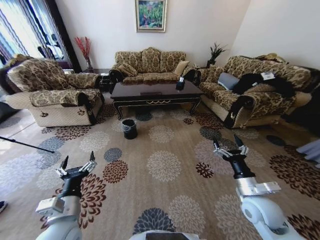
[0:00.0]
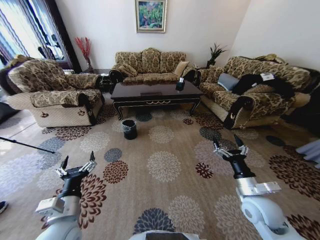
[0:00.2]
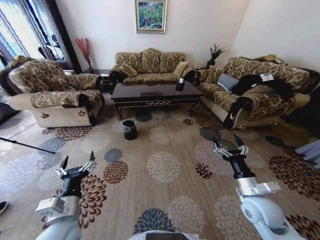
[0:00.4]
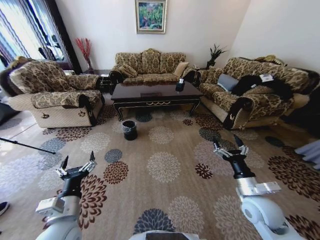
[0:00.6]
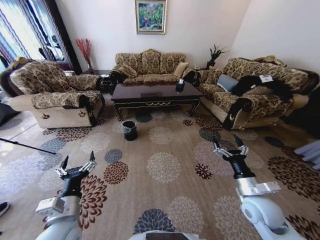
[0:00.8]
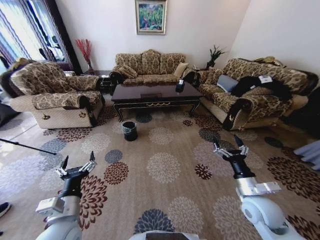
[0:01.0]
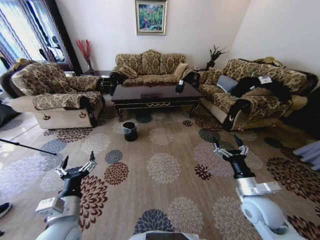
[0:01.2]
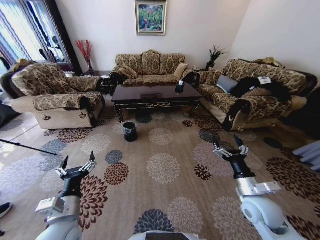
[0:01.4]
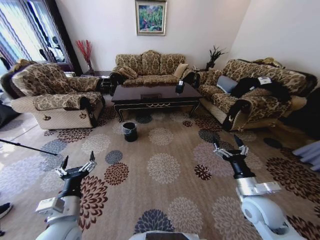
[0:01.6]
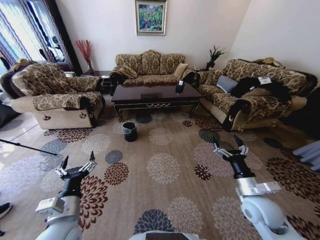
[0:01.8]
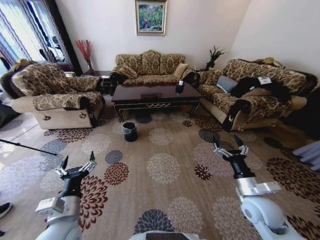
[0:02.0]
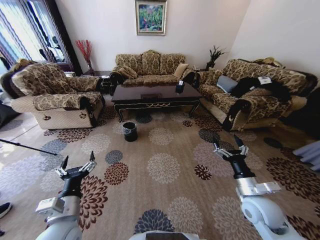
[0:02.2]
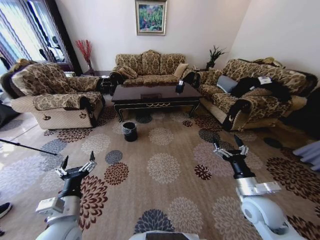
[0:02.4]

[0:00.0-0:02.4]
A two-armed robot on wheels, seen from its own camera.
Task of the whole recording: Move to the front of the table and pick up the trash from the floor, then place it into the trash bin.
0:00.0 to 0:02.4: Neither gripper changes place.

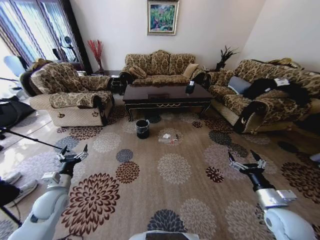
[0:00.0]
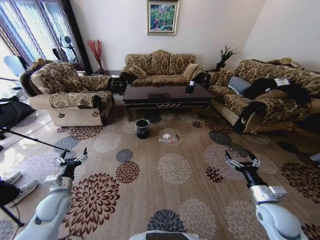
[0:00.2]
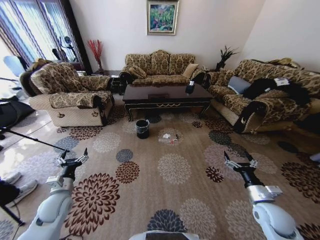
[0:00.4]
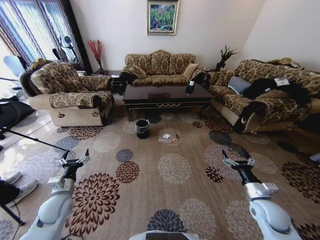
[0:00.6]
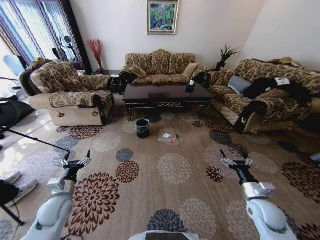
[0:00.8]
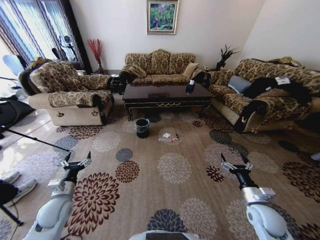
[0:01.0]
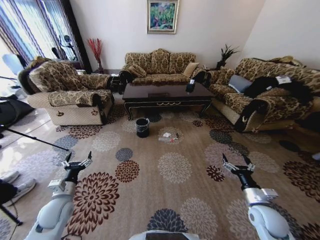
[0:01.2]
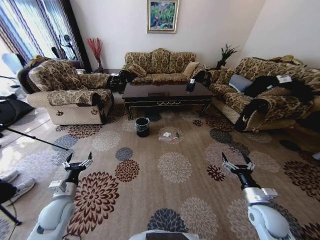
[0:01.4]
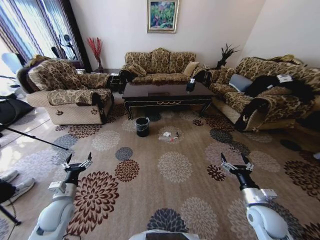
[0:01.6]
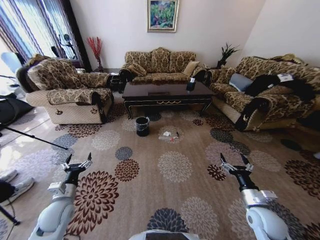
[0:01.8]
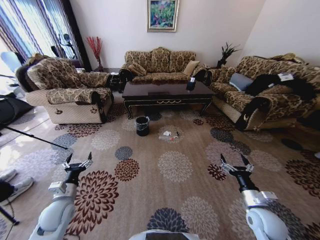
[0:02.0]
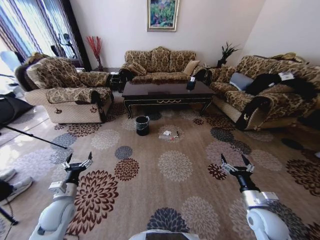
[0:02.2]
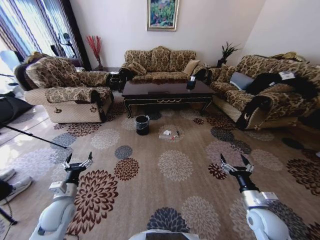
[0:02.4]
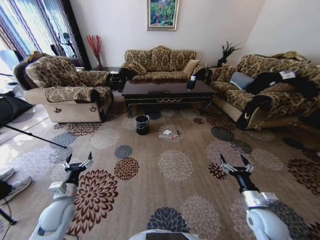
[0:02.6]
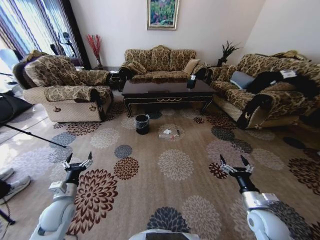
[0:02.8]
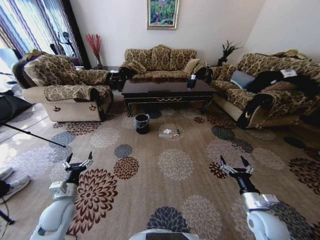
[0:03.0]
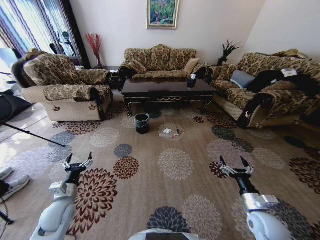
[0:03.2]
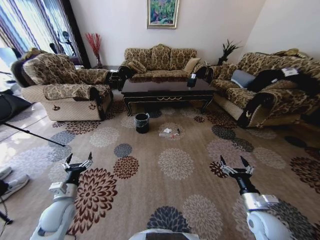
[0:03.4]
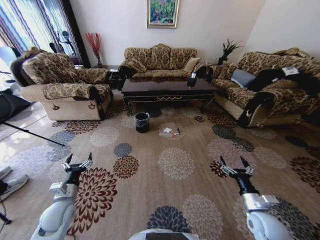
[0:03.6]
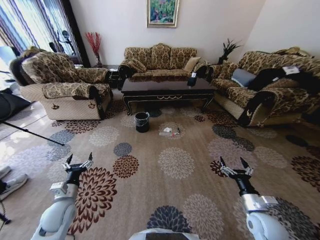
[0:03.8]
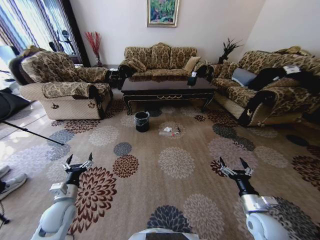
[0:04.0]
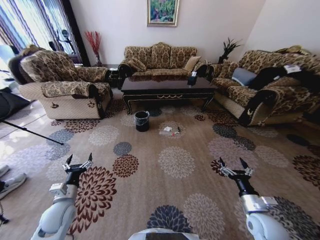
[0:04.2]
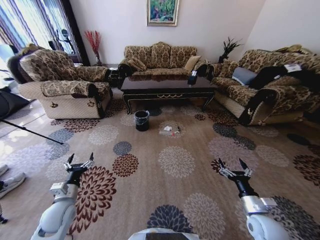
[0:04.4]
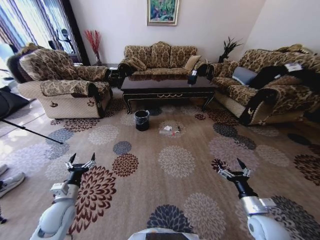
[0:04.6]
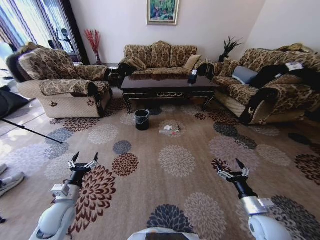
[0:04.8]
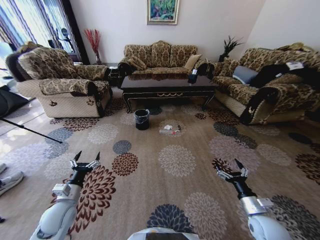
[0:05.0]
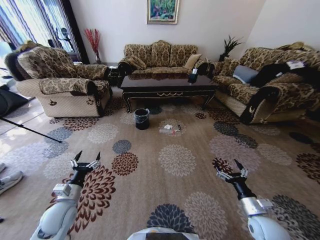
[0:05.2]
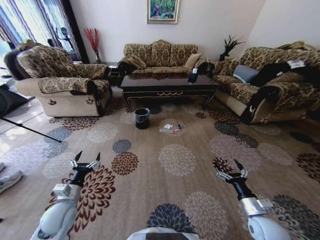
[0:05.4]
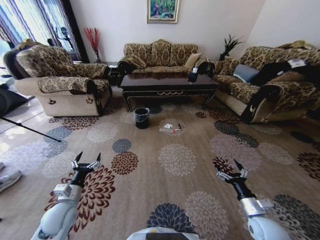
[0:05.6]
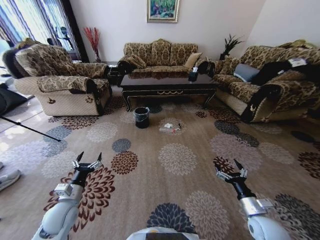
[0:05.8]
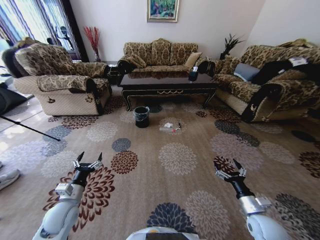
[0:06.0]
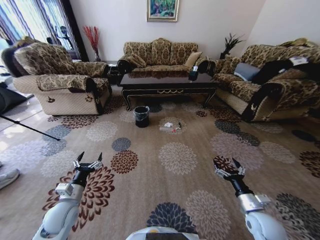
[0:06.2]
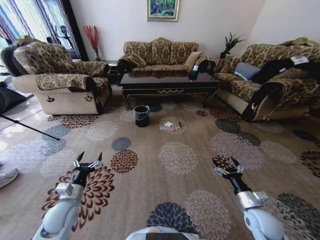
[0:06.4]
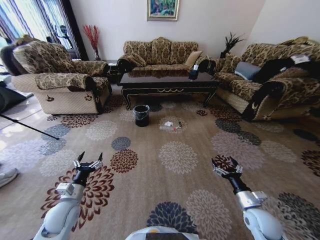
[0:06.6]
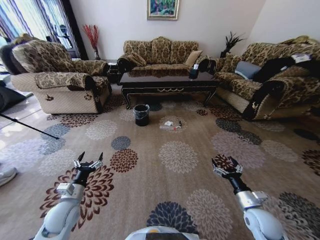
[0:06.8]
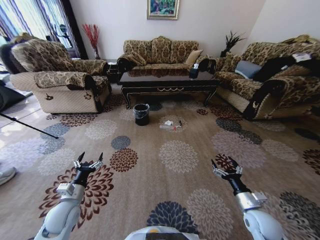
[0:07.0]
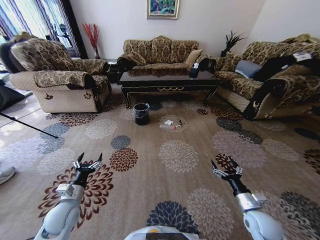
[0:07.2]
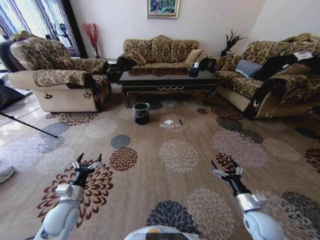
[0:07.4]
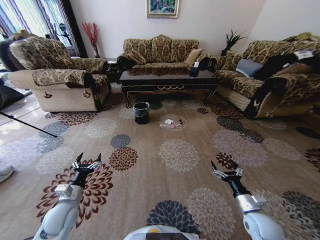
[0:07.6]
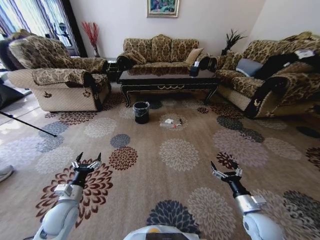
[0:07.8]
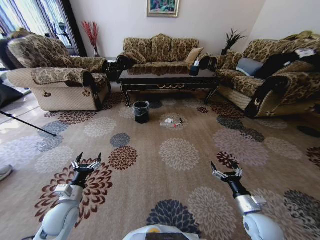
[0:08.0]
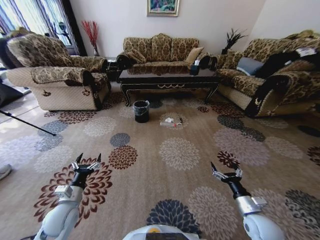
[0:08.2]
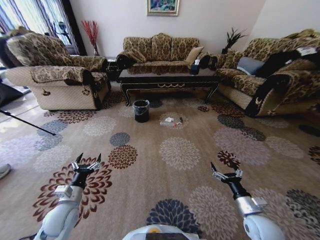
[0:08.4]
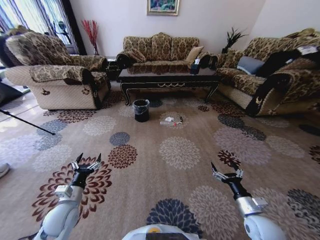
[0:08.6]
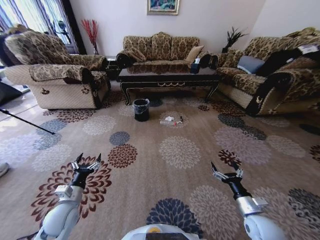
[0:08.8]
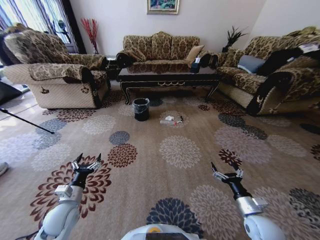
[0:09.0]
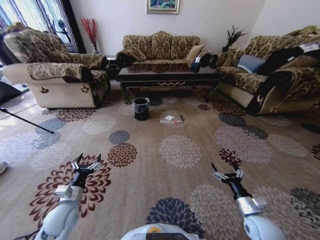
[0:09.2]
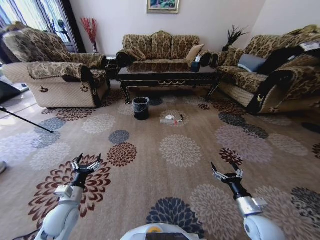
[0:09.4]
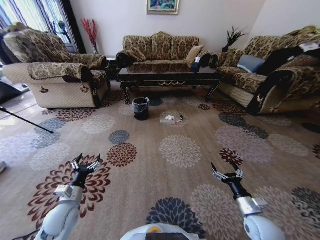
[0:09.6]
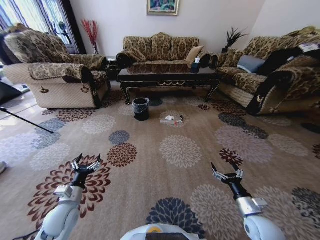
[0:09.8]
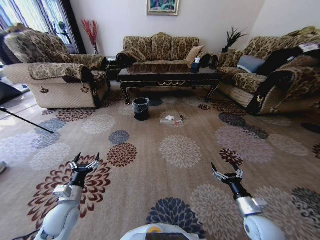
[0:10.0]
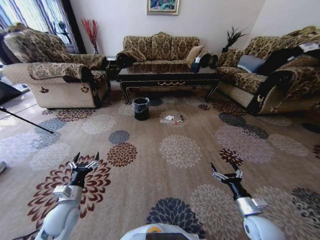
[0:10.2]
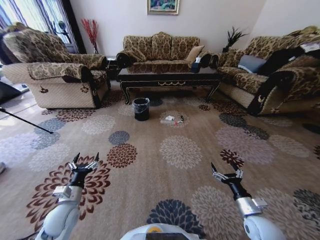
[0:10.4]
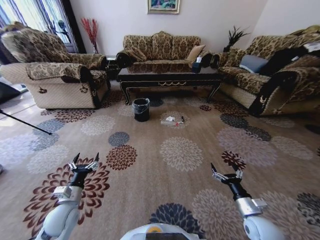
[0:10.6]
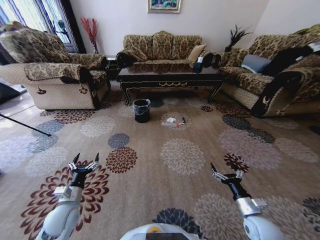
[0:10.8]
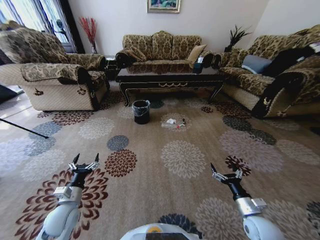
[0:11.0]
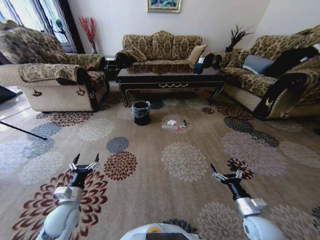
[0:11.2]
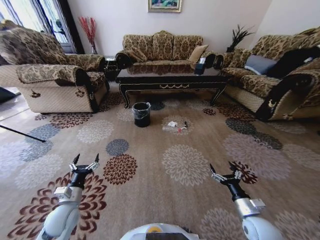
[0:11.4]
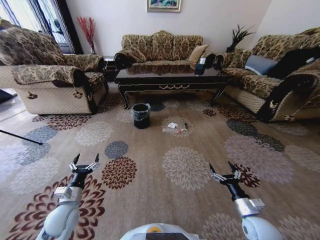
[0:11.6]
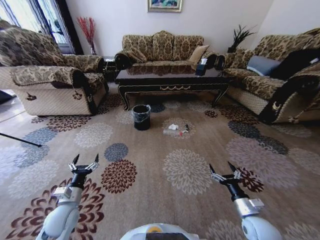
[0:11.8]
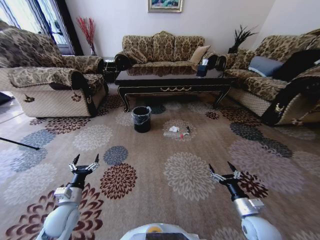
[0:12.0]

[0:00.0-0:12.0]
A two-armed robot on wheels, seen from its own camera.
Task of the whole recording: Move to the front of the table and pick up the trash from the floor, then place it into the trash bin.
0:09.0 to 0:10.4: Both grippers stay about where they are.

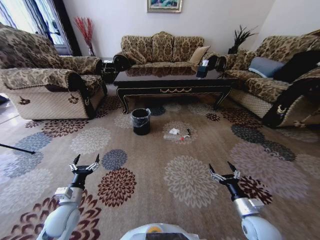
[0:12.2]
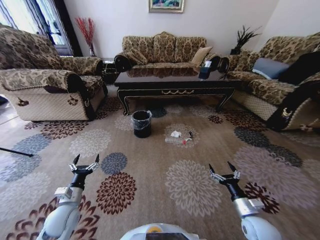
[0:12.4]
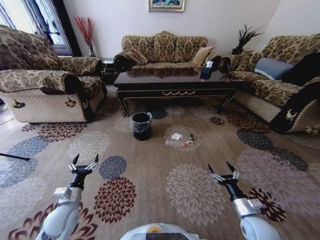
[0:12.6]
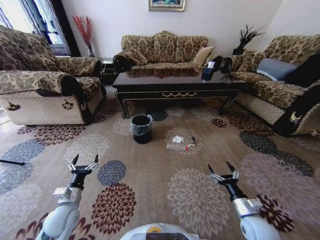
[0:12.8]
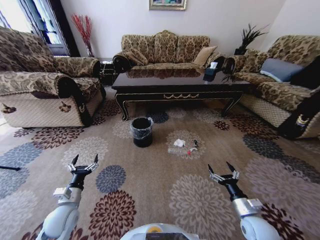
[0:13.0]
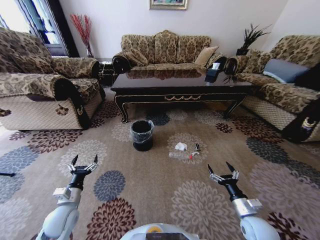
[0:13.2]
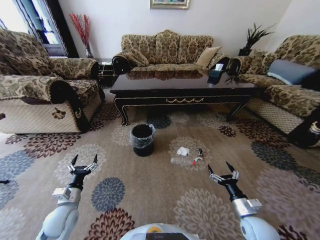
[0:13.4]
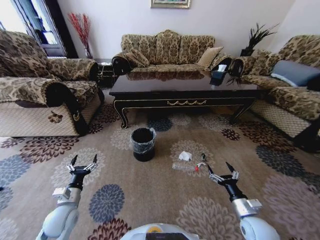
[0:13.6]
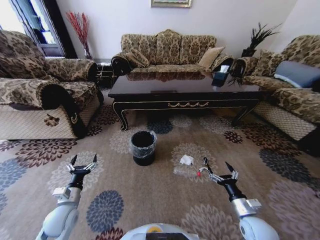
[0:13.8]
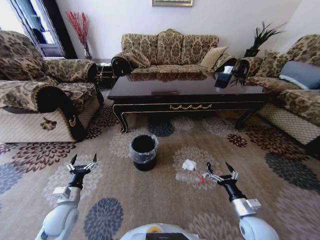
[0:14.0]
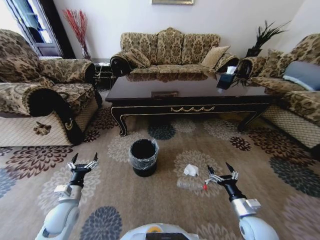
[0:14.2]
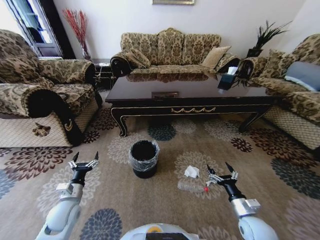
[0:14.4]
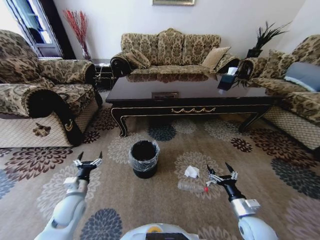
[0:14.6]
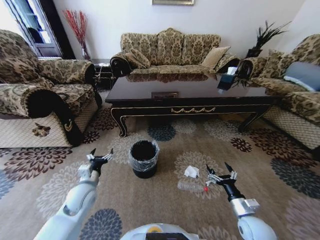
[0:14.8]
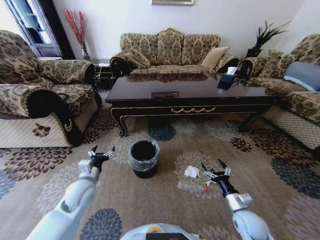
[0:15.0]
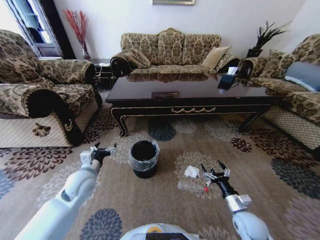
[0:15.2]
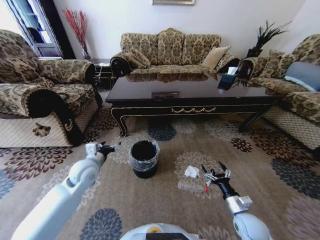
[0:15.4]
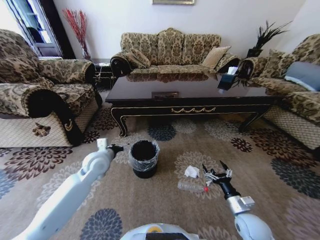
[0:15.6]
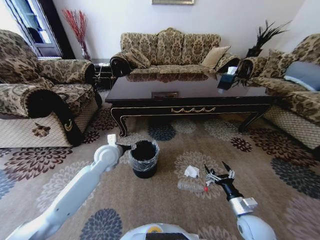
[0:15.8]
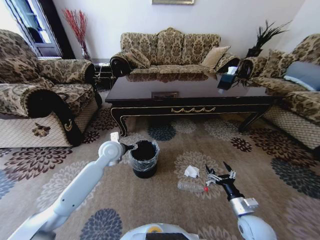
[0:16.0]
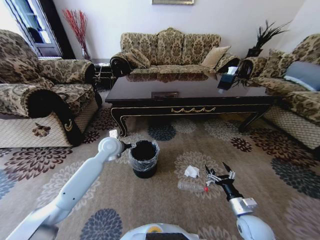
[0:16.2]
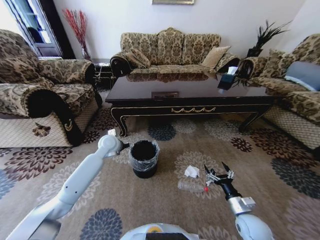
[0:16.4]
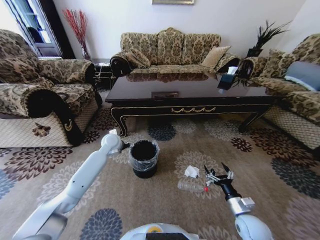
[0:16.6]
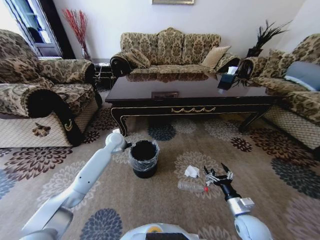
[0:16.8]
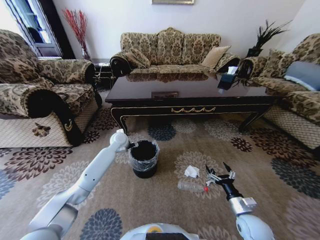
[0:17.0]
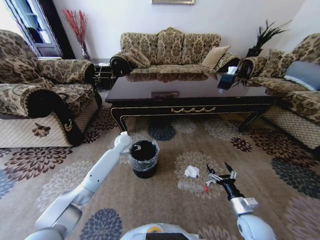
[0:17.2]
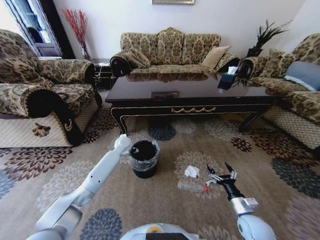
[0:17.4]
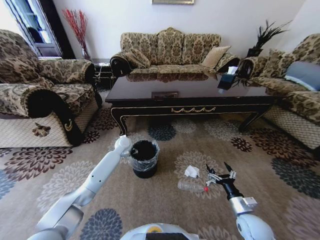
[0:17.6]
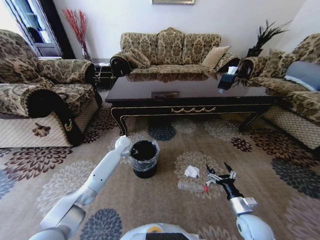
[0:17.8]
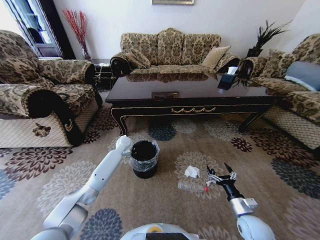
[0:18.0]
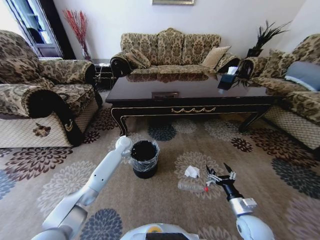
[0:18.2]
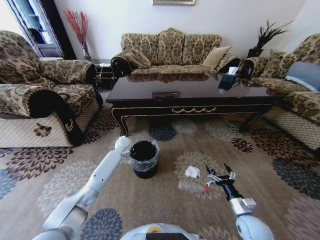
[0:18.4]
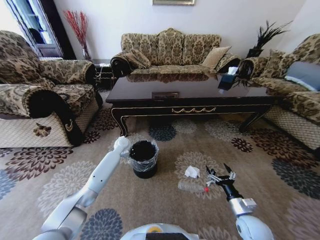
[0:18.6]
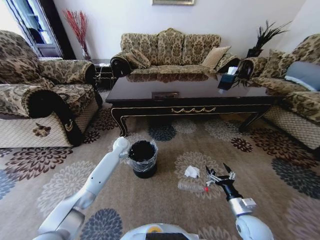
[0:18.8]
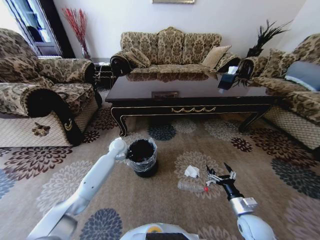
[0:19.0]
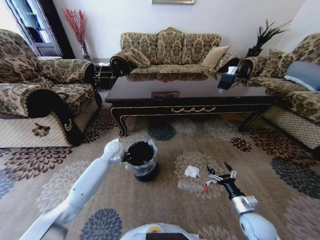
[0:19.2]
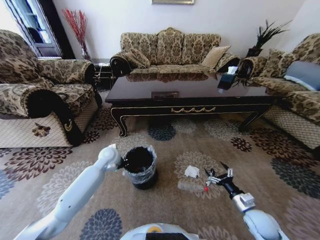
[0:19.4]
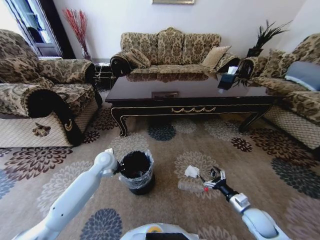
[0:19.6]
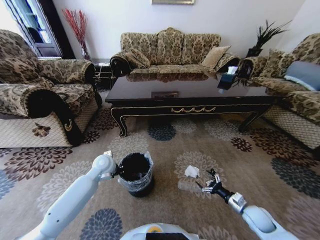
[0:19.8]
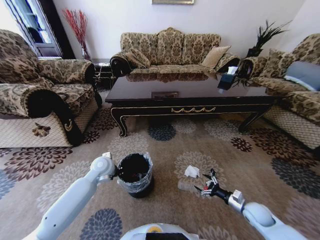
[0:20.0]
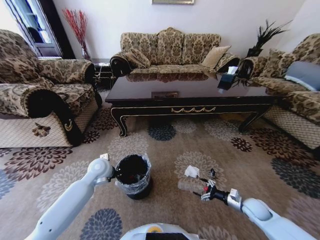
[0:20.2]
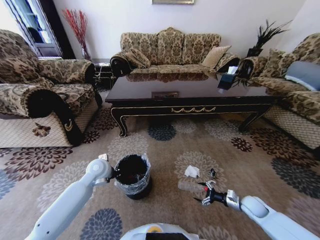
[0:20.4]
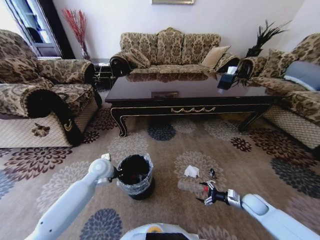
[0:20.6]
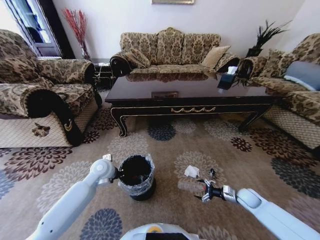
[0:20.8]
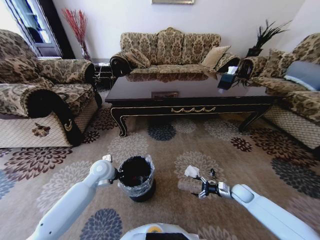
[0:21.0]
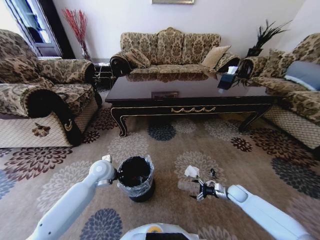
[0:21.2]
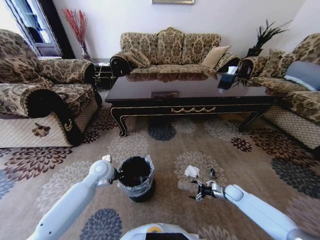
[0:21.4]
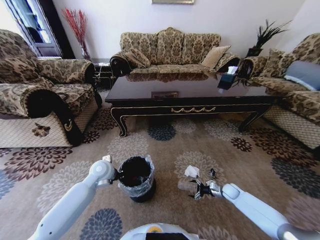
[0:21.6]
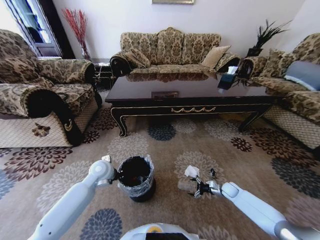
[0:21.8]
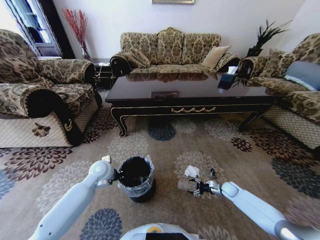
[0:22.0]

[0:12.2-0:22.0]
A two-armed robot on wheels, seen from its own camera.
Task of the whole recording: Move to the front of the table and pick up the trash from the floor, then place it into the trash bin.
0:13.6 to 0:15.0: The left gripper is displaced upward, to the right and forward by some 15 cm.
0:15.0 to 0:16.4: The left gripper goes some 20 cm forward.
0:16.4 to 0:17.8: The left gripper is displaced downward and forward by roughly 10 cm.
0:17.8 to 0:19.2: The left gripper goes approximately 5 cm backward, and closes.
0:19.2 to 0:20.6: The right gripper shifts roughly 15 cm to the right, forward and downward. Meanwhile the left gripper goes about 10 cm backward.
0:20.6 to 0:22.0: The right gripper travels forward and downward by roughly 10 cm.
